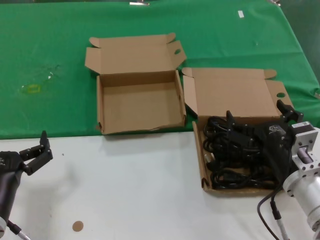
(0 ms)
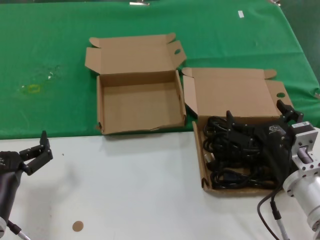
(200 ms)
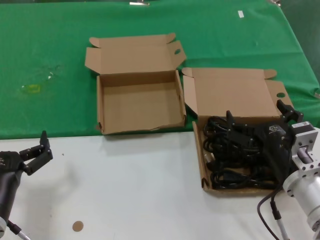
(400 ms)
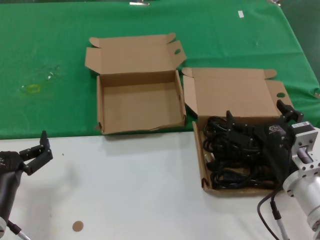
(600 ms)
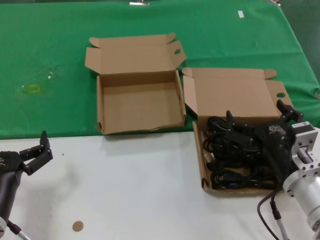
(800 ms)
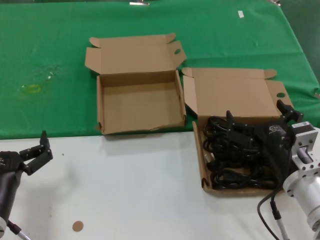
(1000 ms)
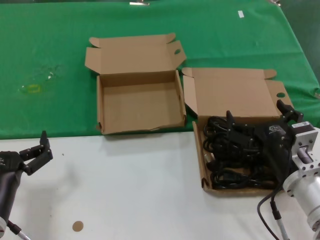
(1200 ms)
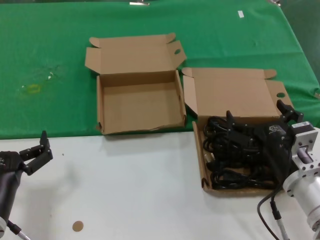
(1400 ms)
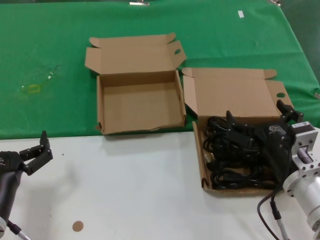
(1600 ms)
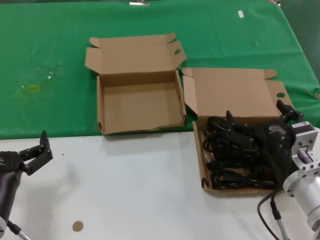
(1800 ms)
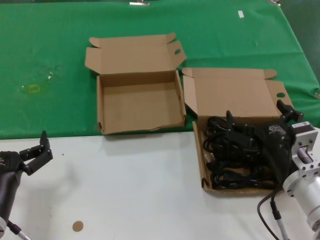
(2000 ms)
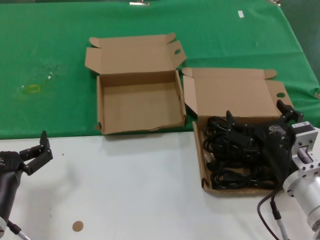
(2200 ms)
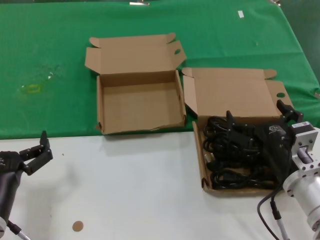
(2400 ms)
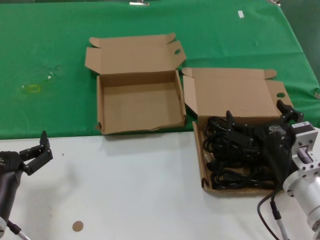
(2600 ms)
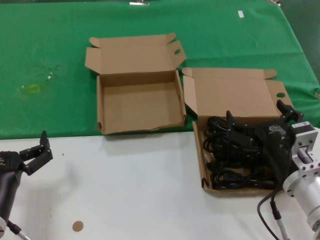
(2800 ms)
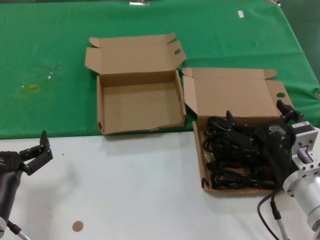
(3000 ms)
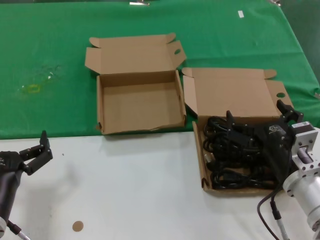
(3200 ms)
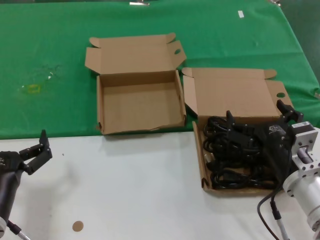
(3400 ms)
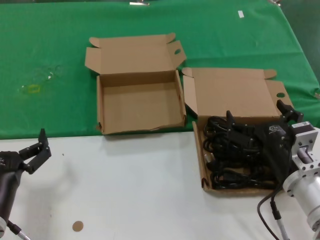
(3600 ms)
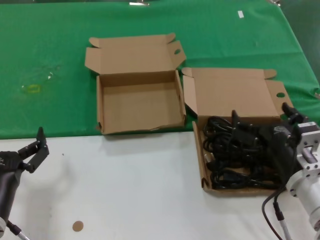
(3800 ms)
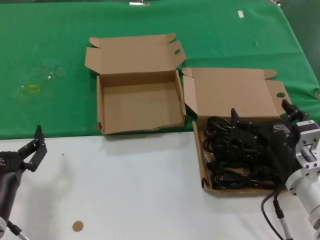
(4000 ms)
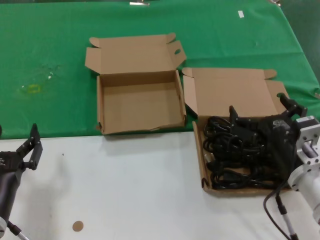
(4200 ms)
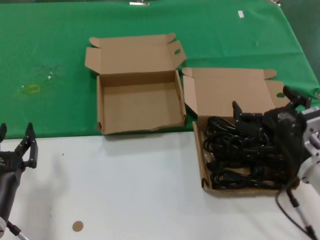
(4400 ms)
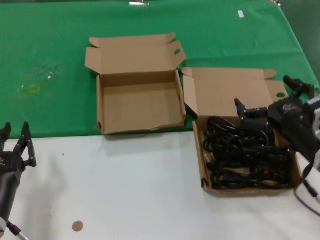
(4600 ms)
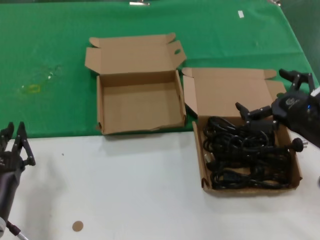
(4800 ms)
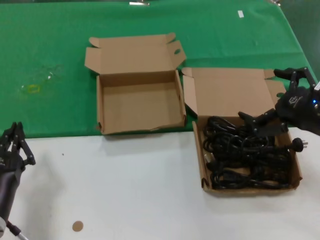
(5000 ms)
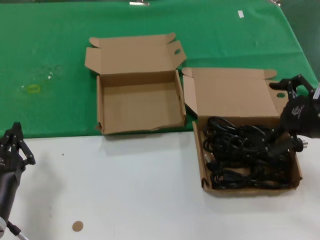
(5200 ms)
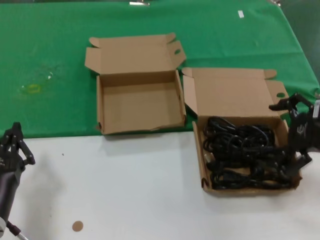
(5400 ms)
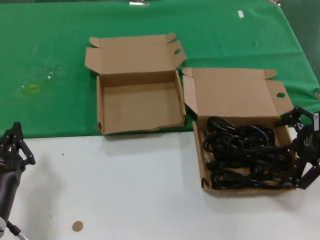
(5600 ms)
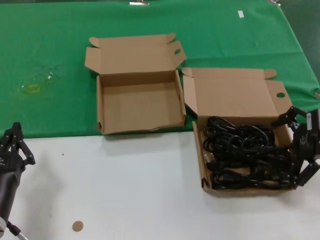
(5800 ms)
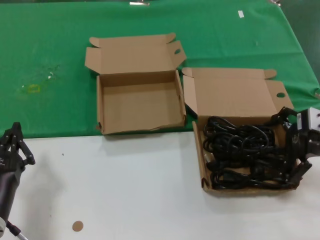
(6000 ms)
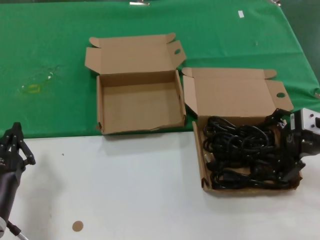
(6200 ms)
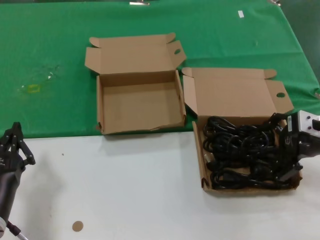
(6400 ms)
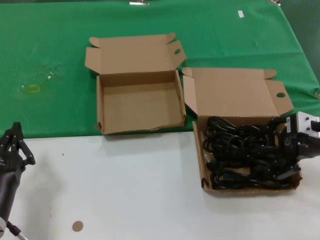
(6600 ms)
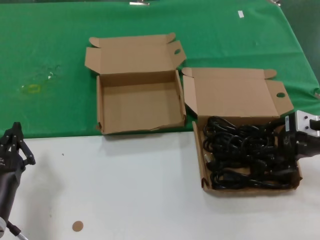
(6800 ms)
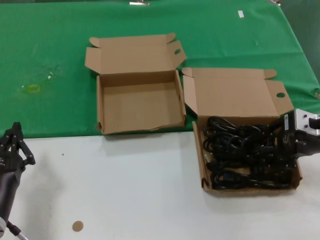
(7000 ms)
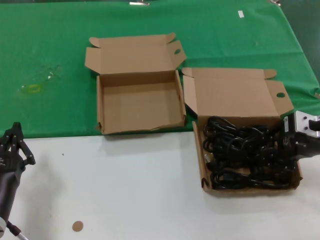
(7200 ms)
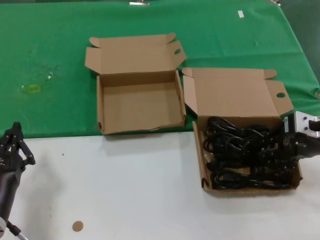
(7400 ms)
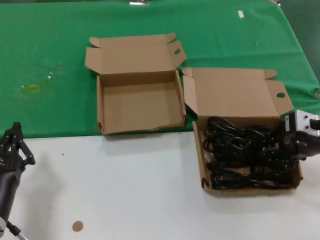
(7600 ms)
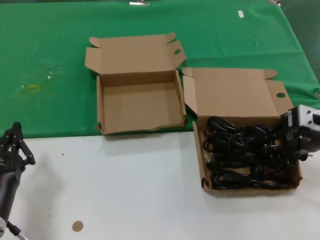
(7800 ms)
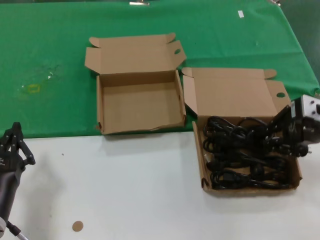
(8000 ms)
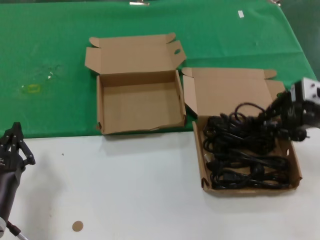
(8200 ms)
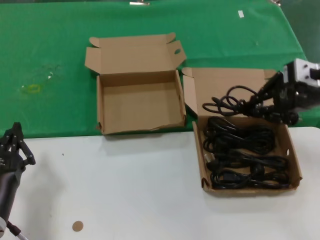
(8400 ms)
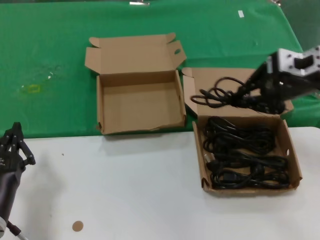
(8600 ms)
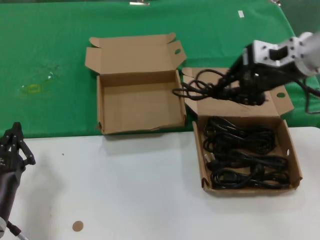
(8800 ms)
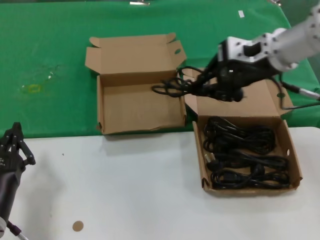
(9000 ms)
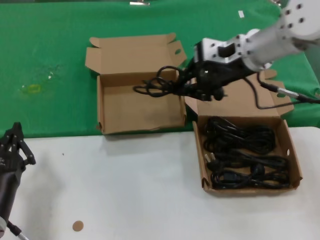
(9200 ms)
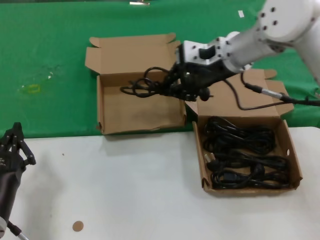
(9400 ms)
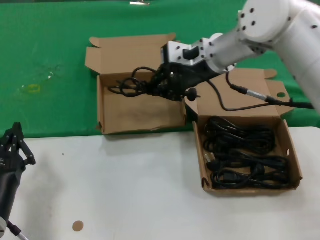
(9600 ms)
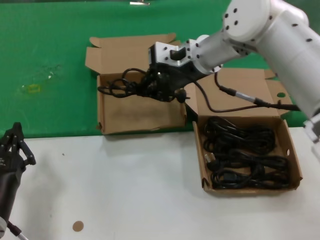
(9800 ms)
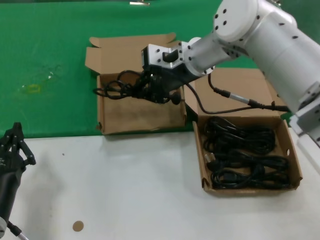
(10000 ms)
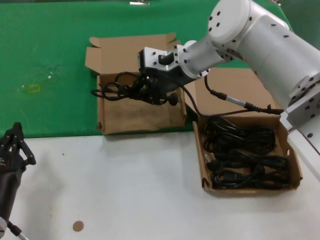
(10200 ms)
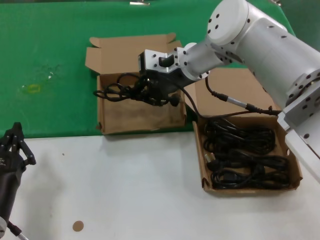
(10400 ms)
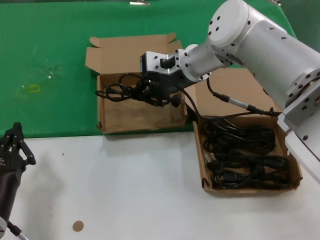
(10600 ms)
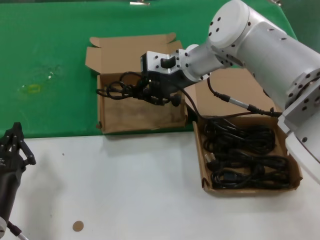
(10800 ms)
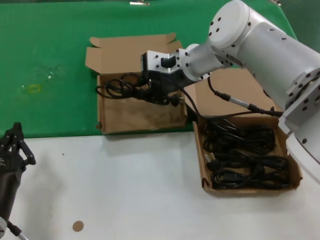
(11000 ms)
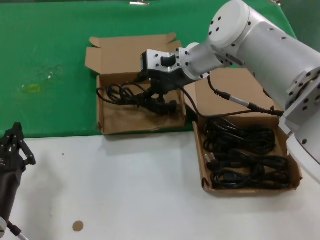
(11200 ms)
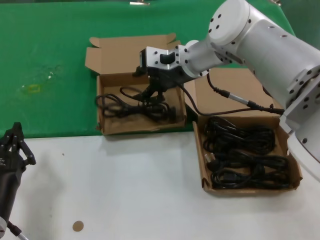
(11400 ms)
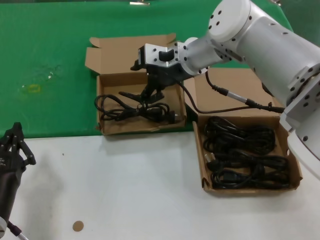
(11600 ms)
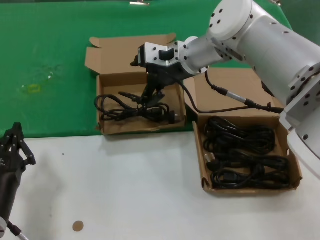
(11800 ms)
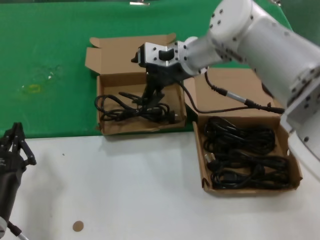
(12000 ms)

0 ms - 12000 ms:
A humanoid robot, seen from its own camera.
Task of the whole recording: take the parts from the box containing them and put them into an empty box.
Step, 0 ms - 7400 ms: Grasp the data cable.
Step, 7600 ms - 11000 ms: Place the data cable in the another box.
0 ms - 3000 ms: Both hands stay put.
3000 ms - 4400 ms: The hands make only small movements.
4400 ms - 6000 ms: The right hand is displaced upward, to the right and forward by about 15 cm.
6000 ms - 7600 ms: There are only small adjustments of the hands.
7600 ms - 9000 ms: The right hand is displaced upward, to the left and forward by some 20 cm.
9000 ms - 10400 ms: The right hand heads to the left and forward, covering about 15 cm.
10400 ms - 12000 ms: The two hands keep their place.

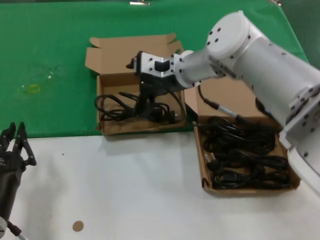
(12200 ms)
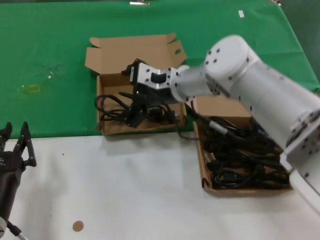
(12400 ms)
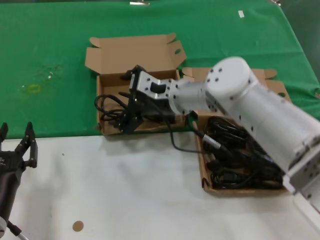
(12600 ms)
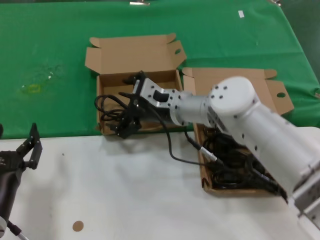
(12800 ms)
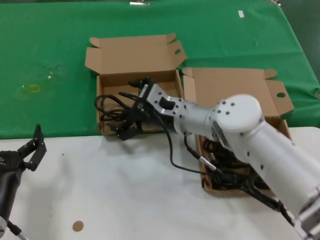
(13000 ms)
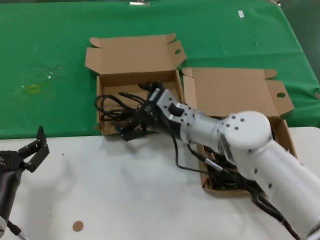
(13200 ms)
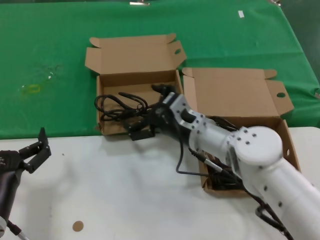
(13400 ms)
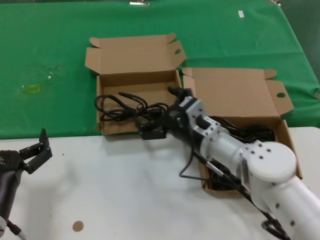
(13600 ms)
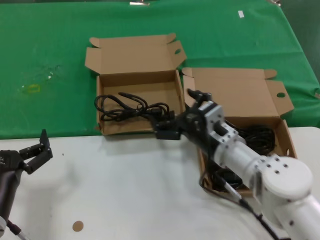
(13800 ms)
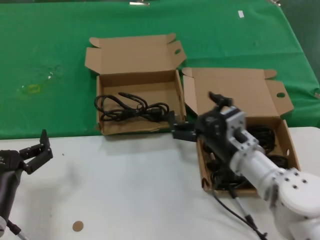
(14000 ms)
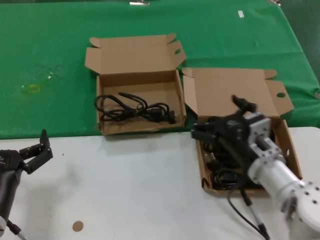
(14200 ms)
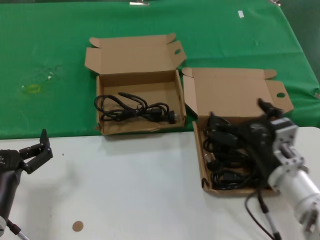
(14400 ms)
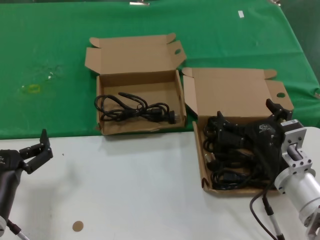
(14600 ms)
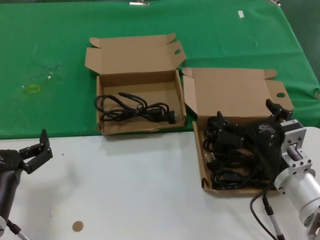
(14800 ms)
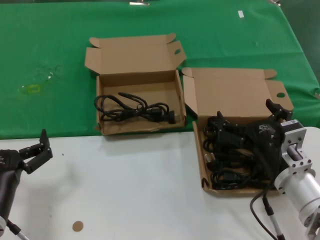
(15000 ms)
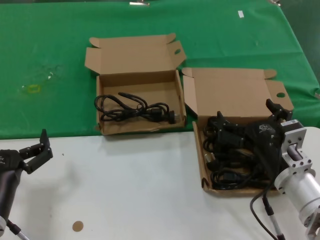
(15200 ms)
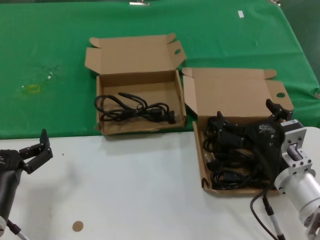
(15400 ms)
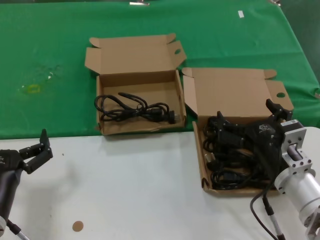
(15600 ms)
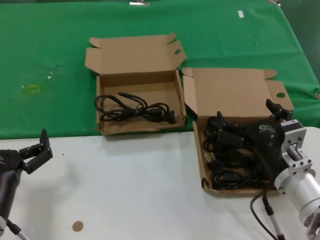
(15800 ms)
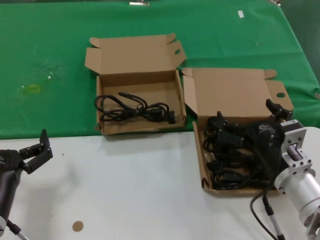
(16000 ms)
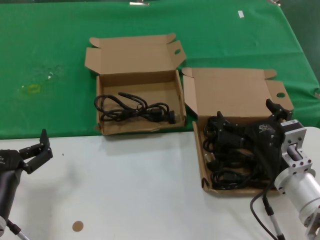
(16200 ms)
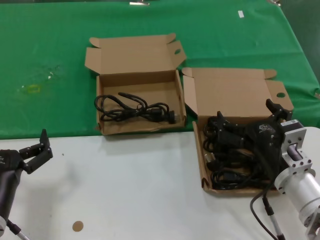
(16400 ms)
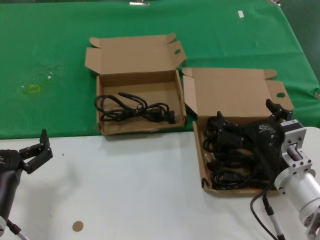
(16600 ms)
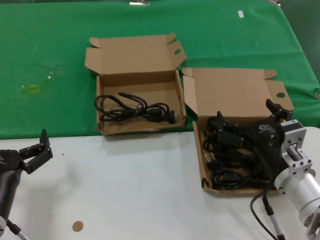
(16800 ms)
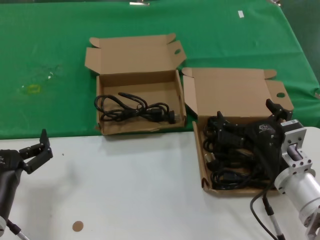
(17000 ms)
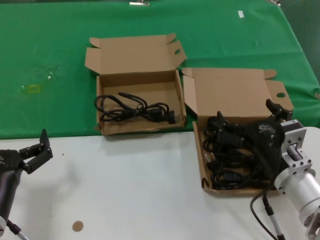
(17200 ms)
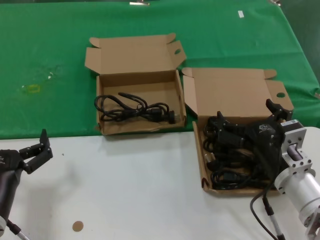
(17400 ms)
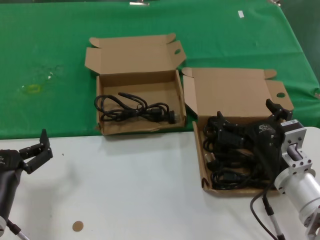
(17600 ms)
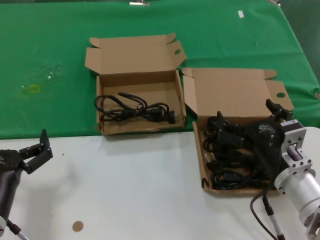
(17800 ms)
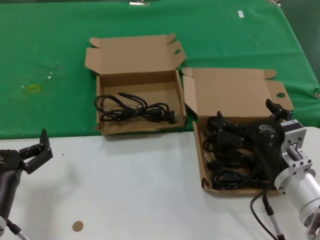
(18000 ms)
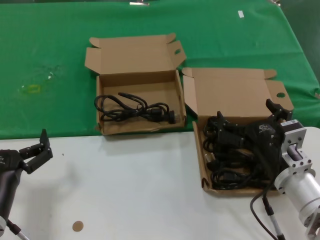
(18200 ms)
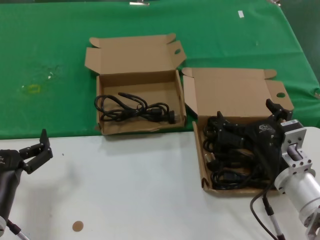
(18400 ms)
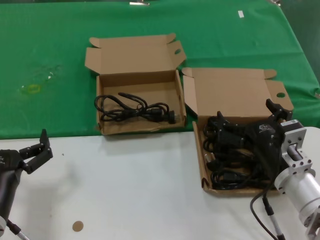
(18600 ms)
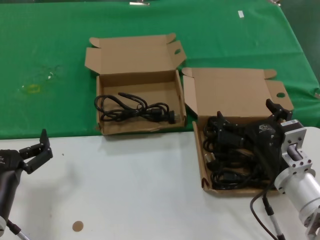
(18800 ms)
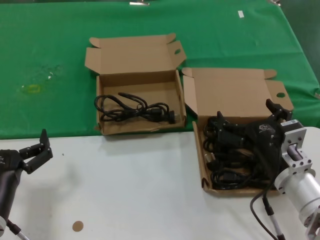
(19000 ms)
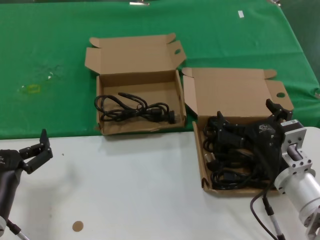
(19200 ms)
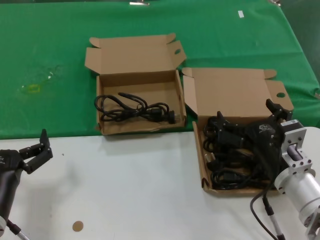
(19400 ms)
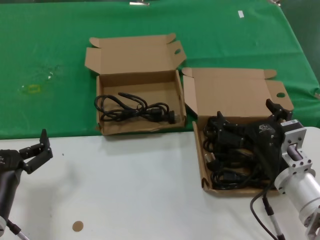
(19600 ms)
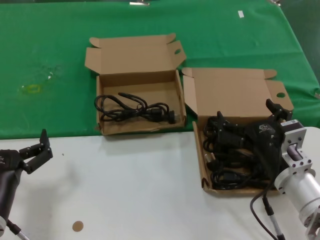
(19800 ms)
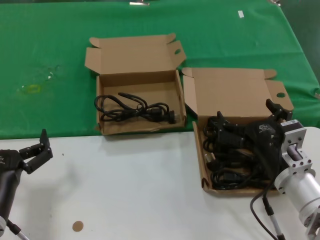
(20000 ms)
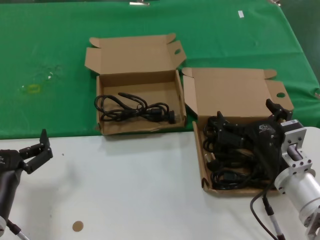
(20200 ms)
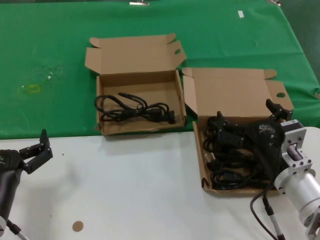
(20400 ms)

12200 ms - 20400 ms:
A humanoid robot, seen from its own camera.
Task of the whole recording: take the parts from the box containing them and put them into an empty box.
12200 ms - 13800 ms: The right hand shifts roughly 20 cm downward and backward.
13800 ms - 15400 ms: The right hand travels backward and to the right by some 15 cm.
15400 ms - 20400 ms: The two hands keep their place.

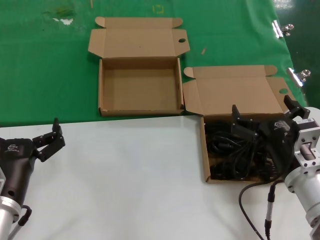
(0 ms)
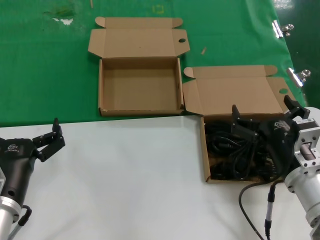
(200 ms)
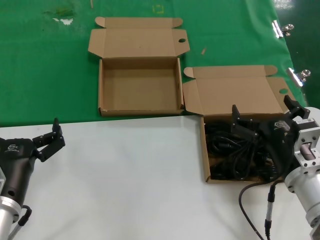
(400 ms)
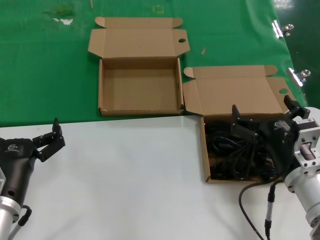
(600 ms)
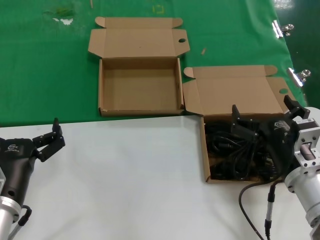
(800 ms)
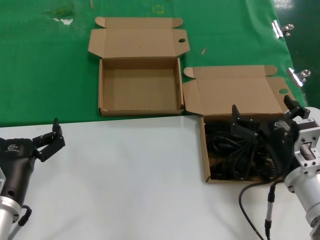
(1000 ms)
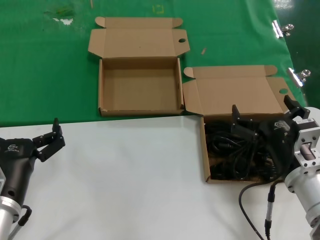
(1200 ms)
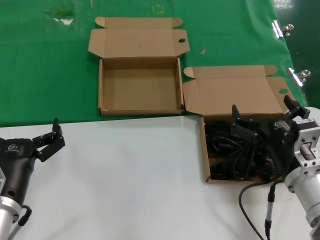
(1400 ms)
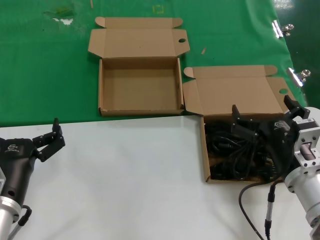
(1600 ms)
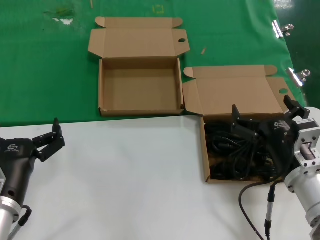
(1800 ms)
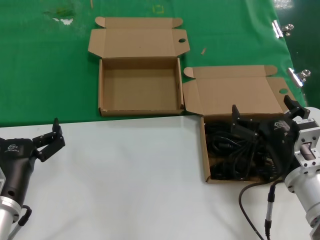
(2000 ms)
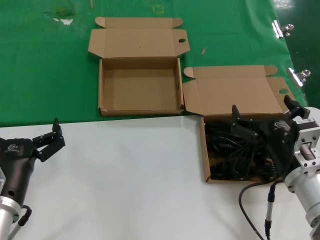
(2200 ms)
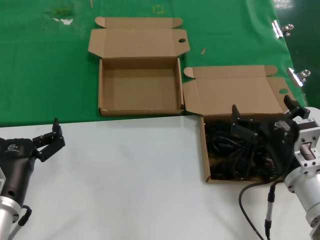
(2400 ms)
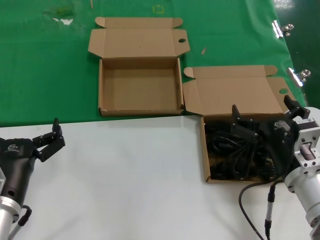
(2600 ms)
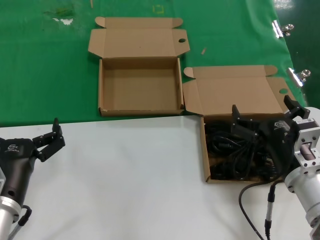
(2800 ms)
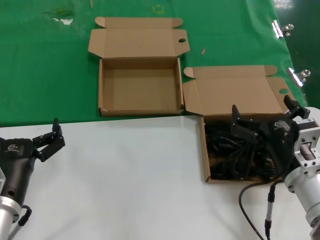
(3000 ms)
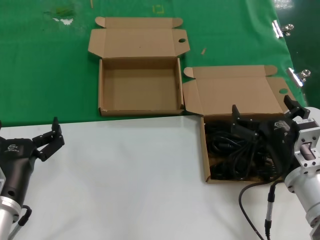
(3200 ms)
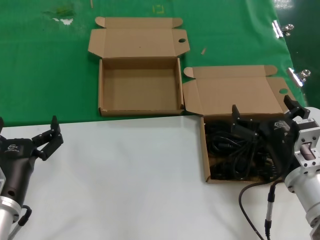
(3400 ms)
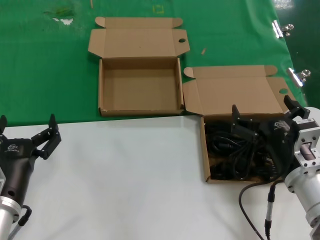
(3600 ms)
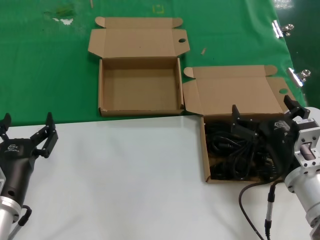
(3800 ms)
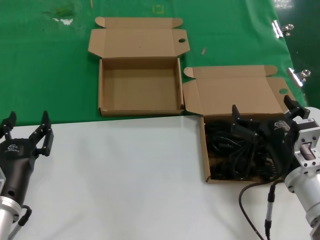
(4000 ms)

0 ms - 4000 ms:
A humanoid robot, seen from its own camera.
Task of the whole recording: take the parts from the box containing them and put them into an empty box.
0 ms - 4000 ms: Both hands stay about where they are.
